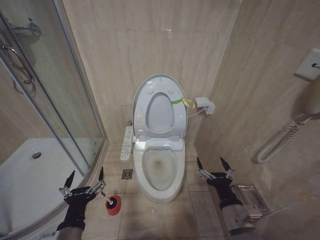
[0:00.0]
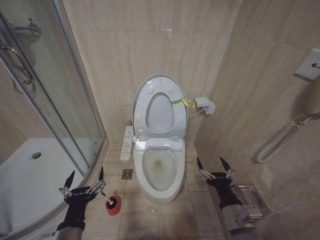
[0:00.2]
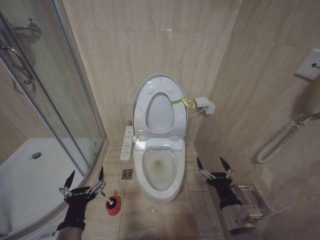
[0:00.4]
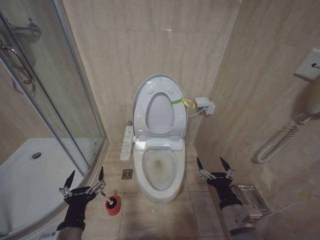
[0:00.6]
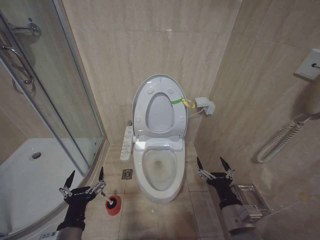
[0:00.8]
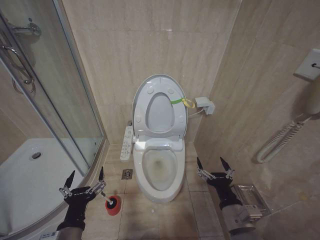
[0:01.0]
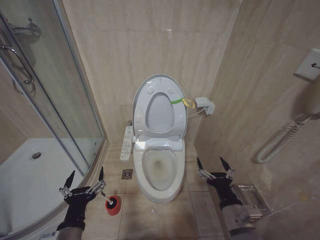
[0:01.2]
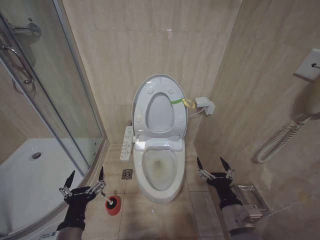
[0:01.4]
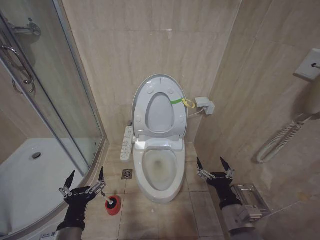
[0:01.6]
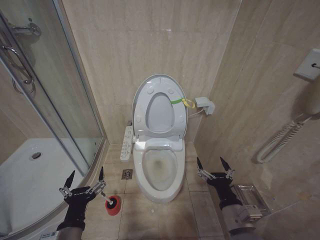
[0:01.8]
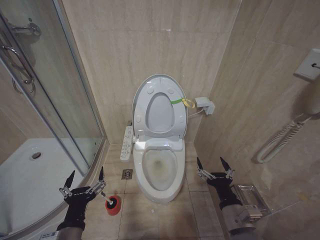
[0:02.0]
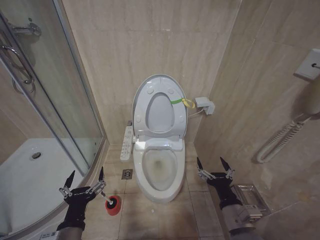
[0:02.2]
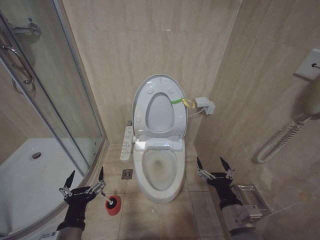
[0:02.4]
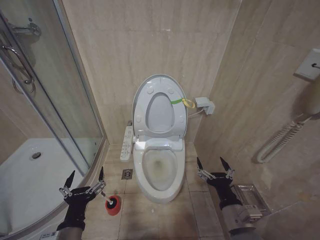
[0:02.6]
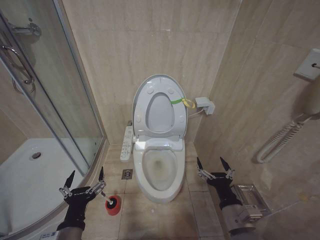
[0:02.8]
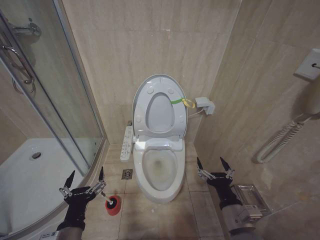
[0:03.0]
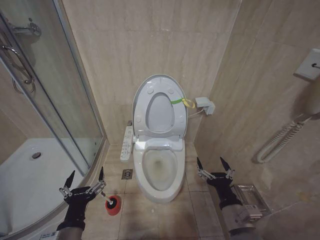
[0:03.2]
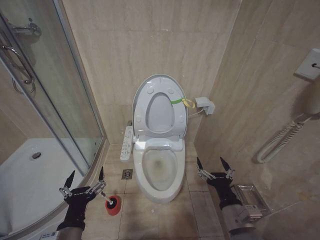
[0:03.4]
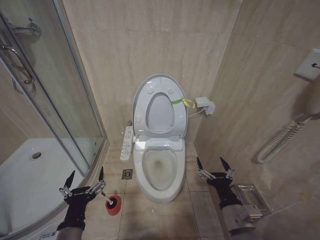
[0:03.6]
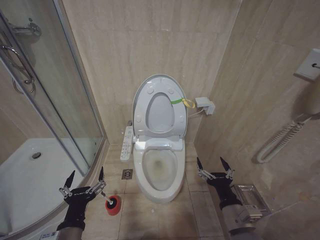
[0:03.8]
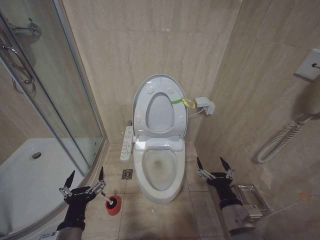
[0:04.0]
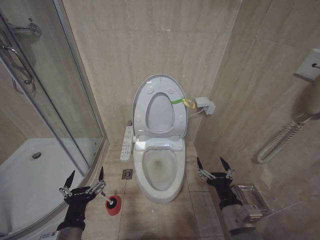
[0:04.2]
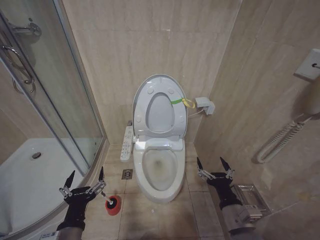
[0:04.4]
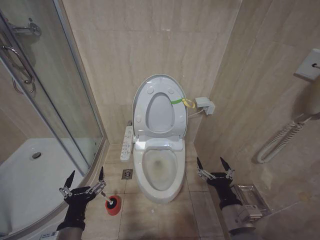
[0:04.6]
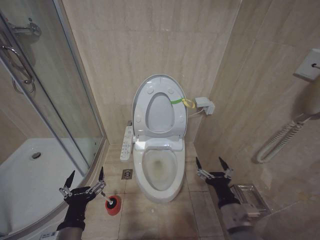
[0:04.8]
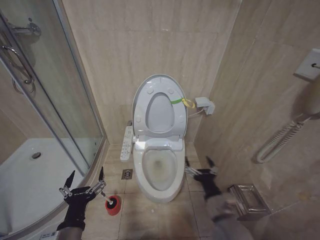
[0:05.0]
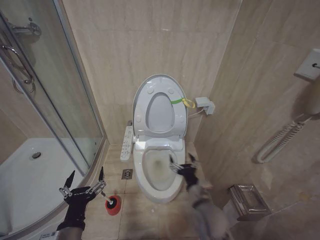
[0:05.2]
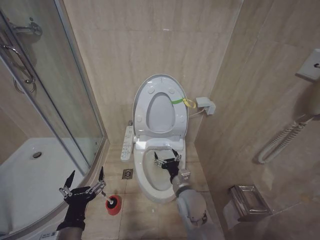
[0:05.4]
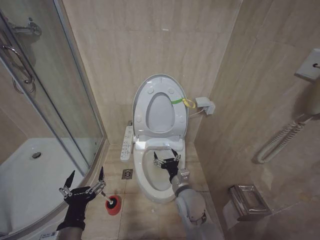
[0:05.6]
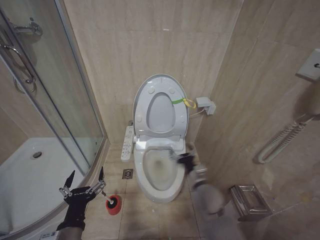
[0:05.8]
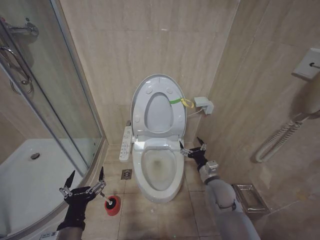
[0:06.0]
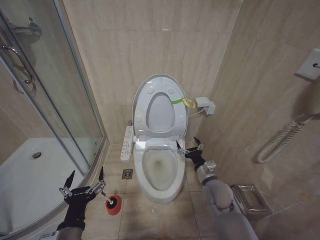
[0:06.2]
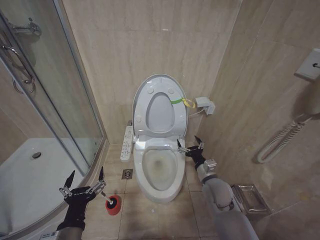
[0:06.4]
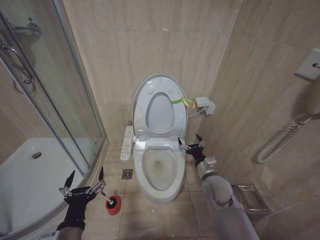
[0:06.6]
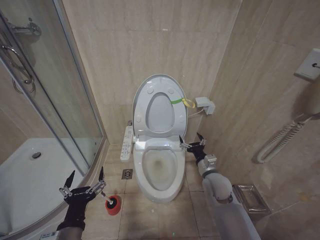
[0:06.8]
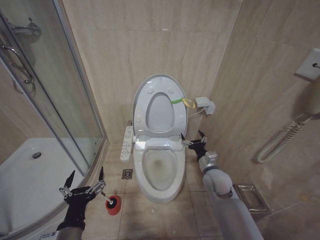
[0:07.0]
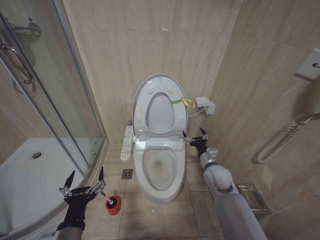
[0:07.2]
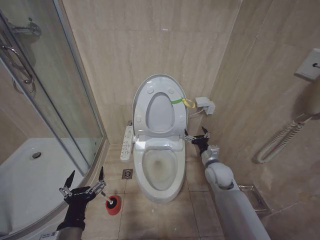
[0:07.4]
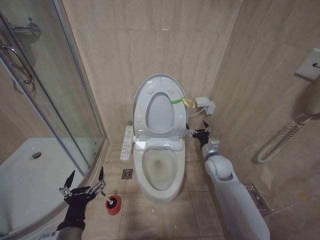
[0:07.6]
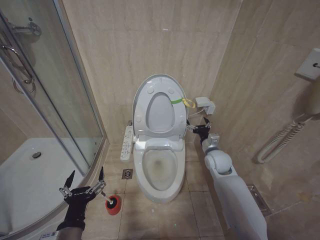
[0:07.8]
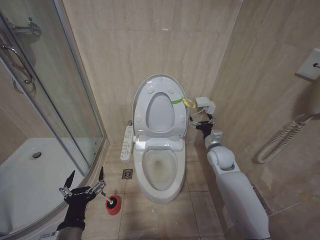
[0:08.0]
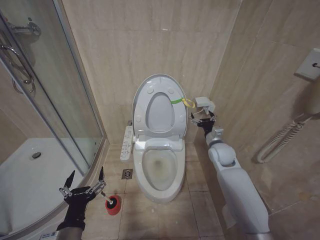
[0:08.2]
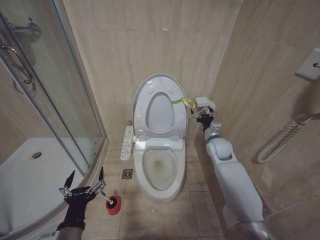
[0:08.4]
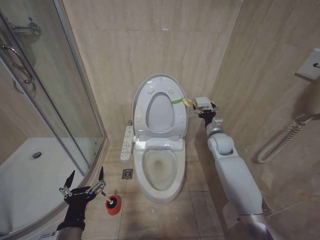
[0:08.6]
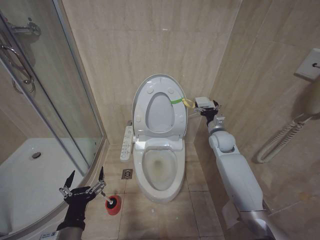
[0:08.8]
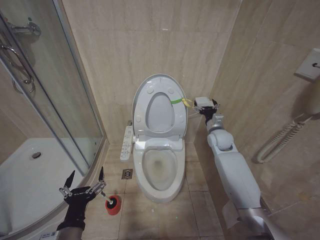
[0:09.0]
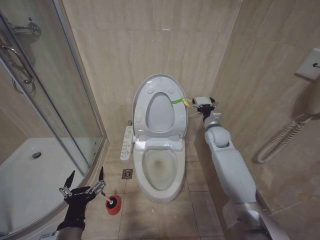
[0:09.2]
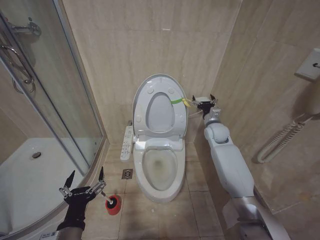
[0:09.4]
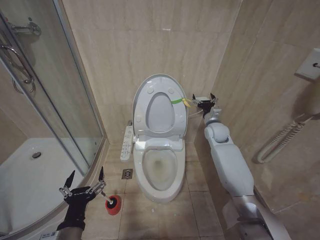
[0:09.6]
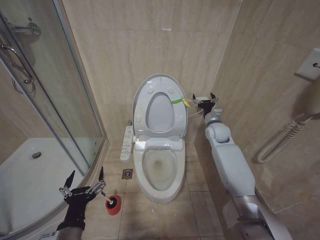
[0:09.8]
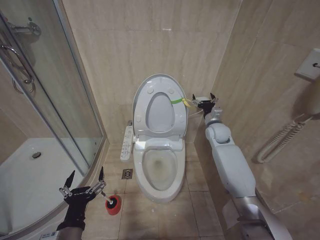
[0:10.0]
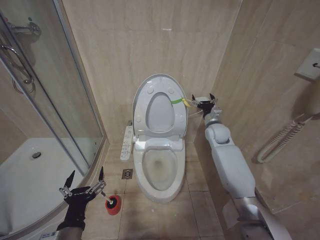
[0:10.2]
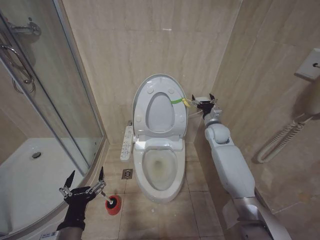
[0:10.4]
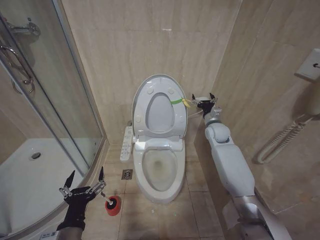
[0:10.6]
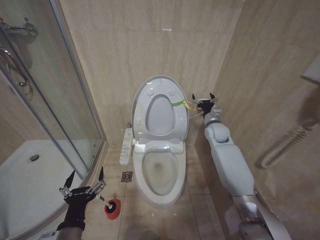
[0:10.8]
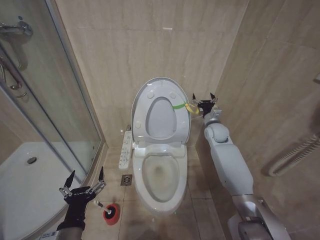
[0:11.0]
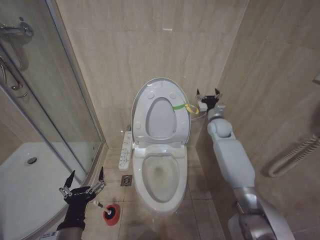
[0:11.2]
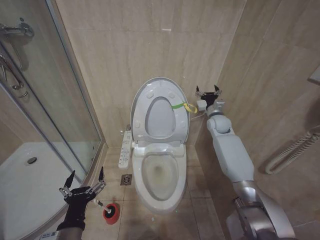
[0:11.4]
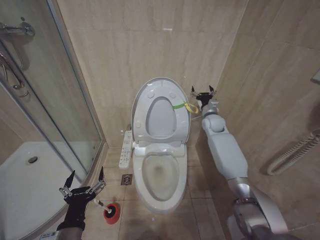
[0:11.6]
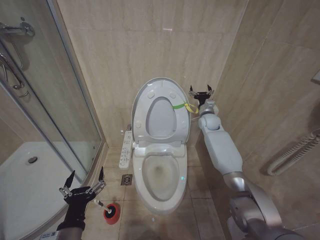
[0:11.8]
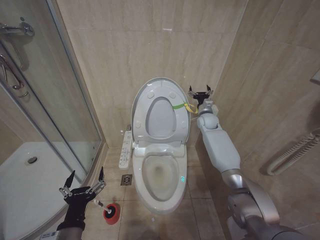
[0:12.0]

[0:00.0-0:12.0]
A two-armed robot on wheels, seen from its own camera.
Task of the whole recording: Open the toilet lid, clean the toilet bowl with a toilet brush, close the toilet lid, and flush.
0:00.0 to 0:04.4: The two grippers keep their place.
0:04.4 to 0:06.0: The right gripper is displaced forward by approximately 15 cm.
0:06.0 to 0:07.6: The right gripper goes roughly 5 cm forward.
0:07.6 to 0:09.0: The right gripper is displaced forward and upward by some 15 cm.
0:09.0 to 0:10.4: The grippers stay close to where they were, moving slightly.
0:10.4 to 0:12.0: The right gripper travels forward by some 10 cm.

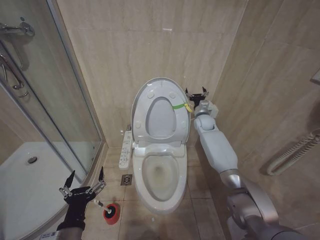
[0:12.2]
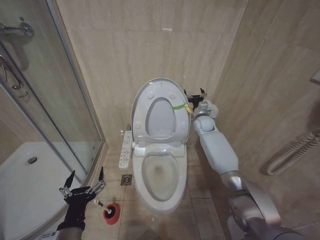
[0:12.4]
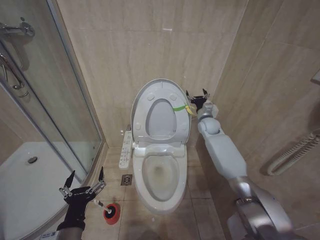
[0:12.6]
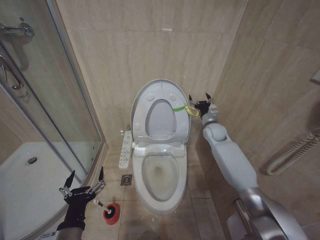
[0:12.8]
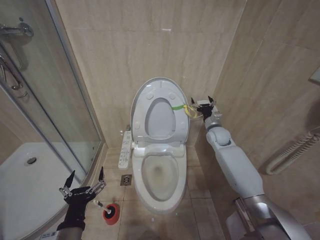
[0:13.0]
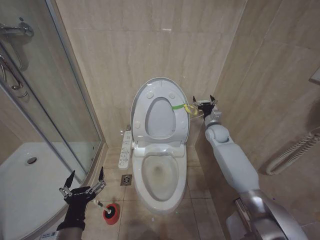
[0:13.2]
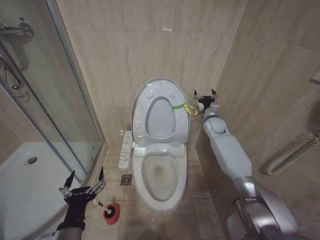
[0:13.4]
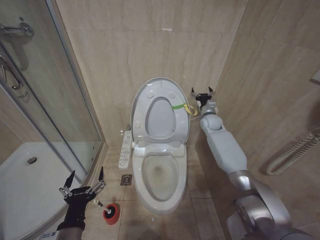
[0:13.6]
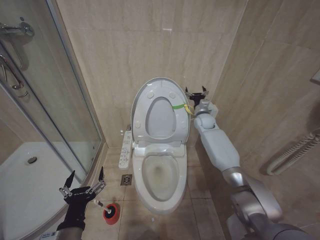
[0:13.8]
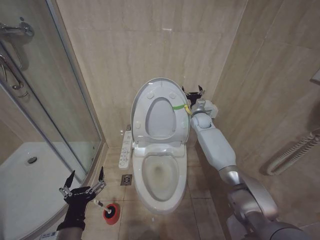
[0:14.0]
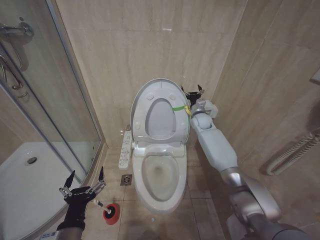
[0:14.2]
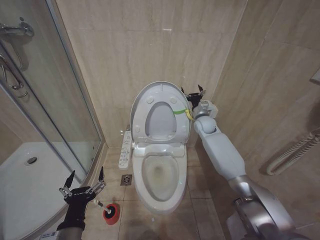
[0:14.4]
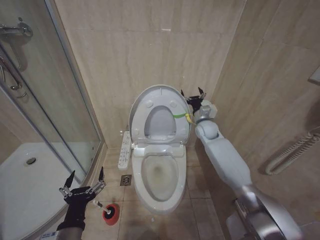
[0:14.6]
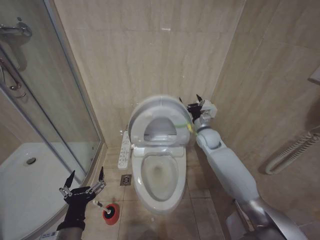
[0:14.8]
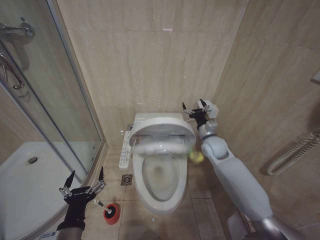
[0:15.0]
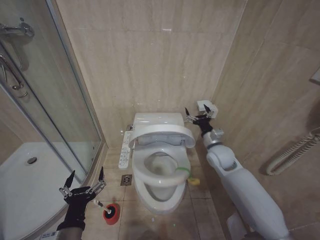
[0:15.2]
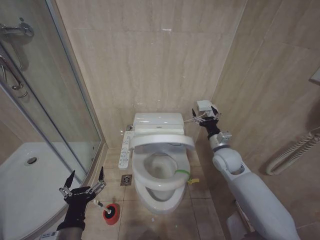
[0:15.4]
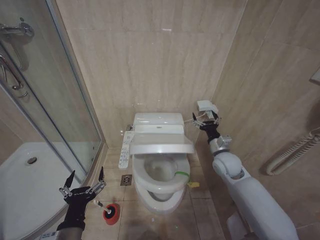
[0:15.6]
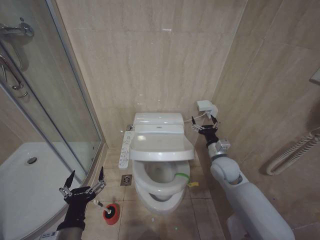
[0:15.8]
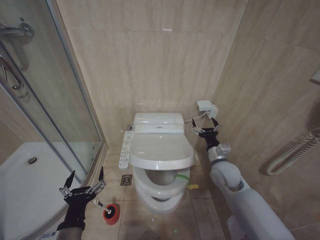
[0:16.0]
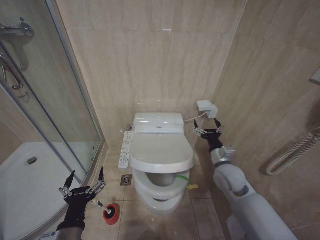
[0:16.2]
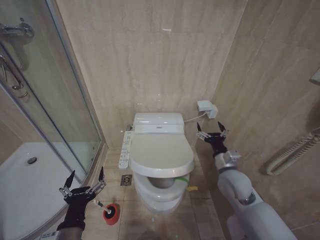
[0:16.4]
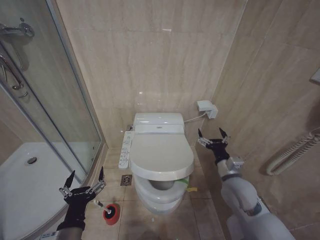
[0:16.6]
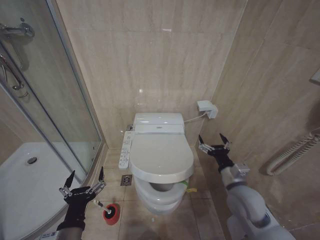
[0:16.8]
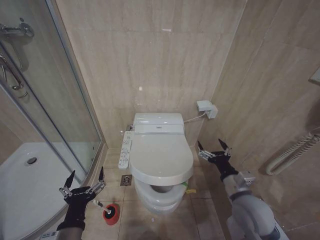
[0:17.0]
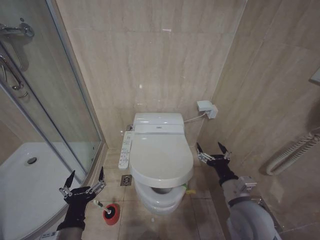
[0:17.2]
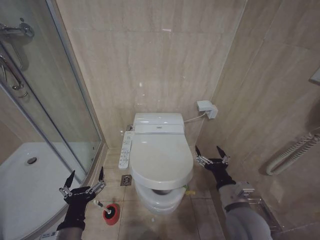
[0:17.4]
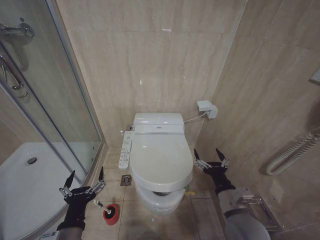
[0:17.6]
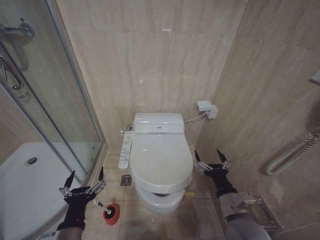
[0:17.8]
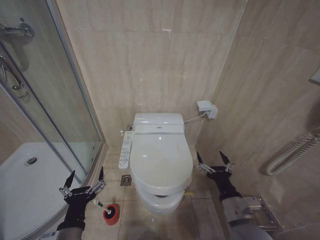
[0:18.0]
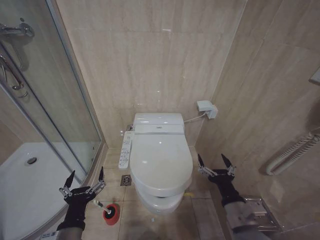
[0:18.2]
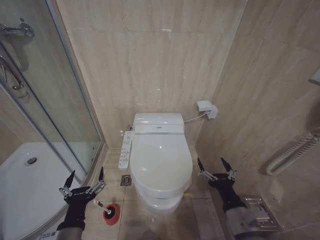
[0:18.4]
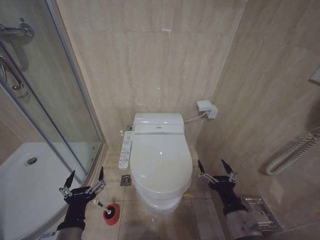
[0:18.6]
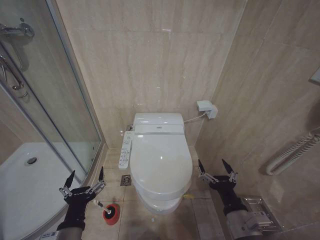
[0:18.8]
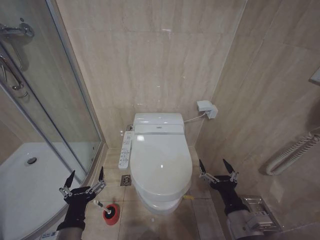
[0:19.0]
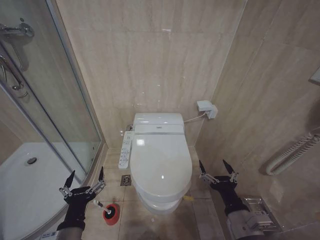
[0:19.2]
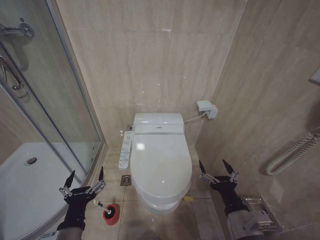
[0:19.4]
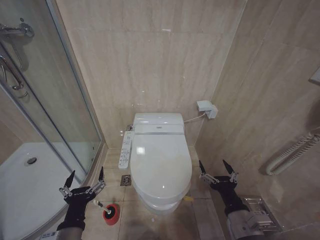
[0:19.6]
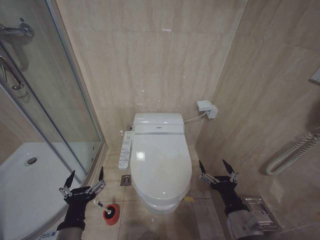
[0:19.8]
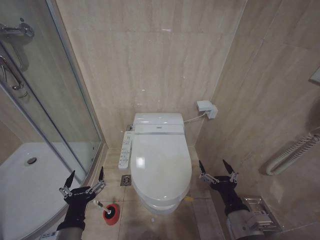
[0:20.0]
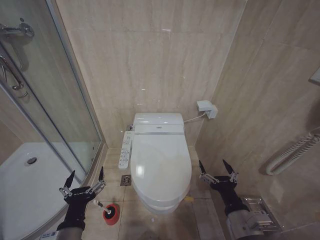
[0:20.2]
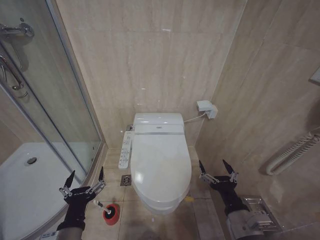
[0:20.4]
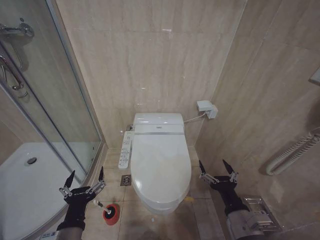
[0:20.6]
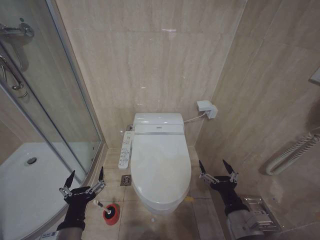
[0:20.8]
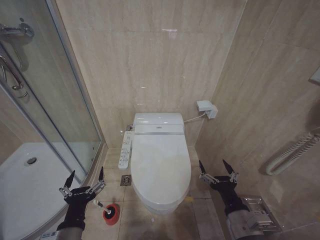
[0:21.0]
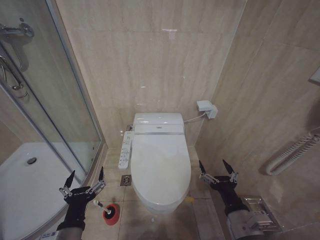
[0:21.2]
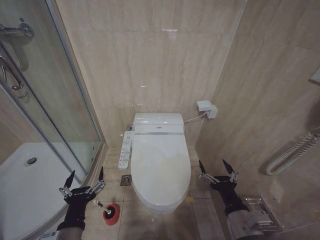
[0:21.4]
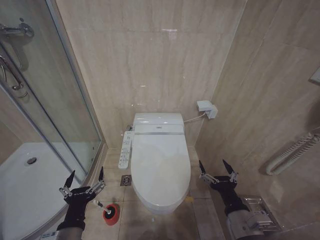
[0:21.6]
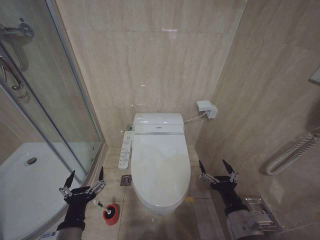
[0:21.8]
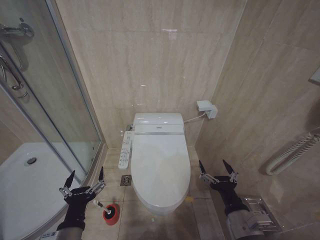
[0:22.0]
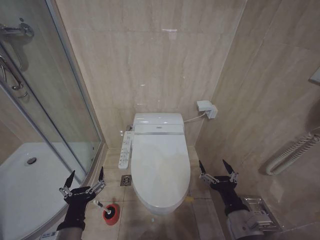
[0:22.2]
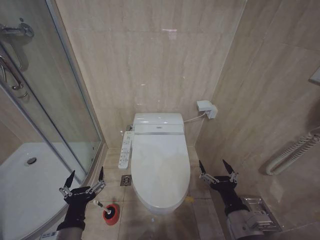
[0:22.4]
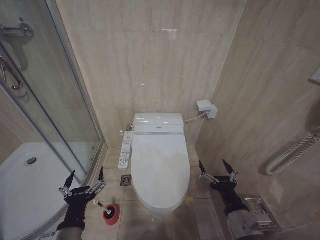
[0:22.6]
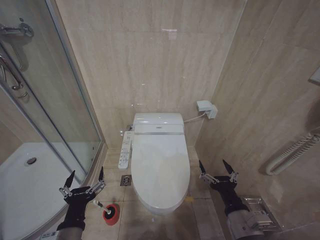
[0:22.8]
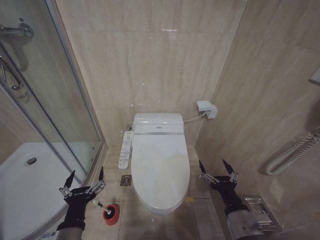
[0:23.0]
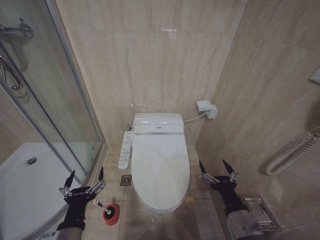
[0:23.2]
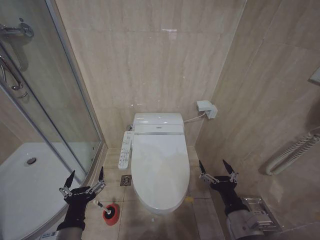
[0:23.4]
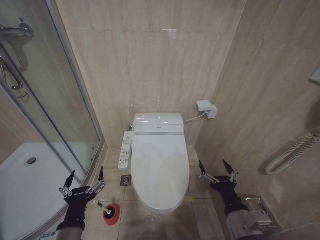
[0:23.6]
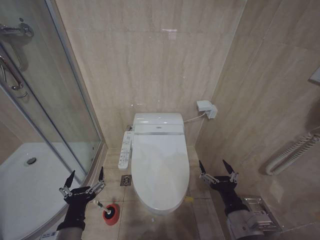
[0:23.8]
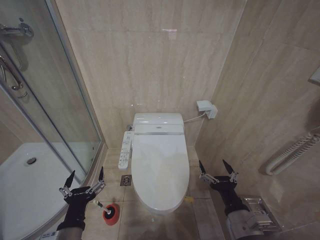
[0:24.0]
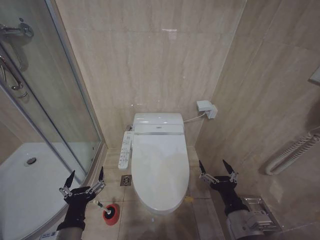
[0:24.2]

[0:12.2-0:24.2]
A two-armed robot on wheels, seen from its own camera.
Task of the whole recording: Open the toilet lid, clean the toilet bowl with a toilet brush, close the toilet lid, and flush.
0:12.2 to 0:13.8: The right gripper goes backward and returns, some 10 cm each way.
0:13.8 to 0:15.2: The right gripper travels backward by about 15 cm.
0:15.2 to 0:16.6: The right gripper goes roughly 15 cm backward.
0:16.6 to 0:18.2: The right gripper shifts some 15 cm backward.
0:18.2 to 0:19.8: The grippers stay close to where they were, moving slightly.
0:19.8 to 0:24.2: Neither gripper changes place.
